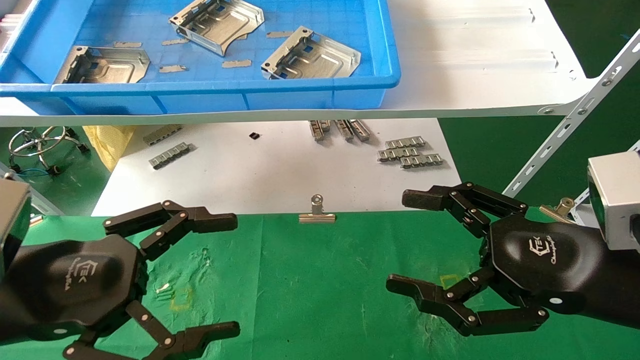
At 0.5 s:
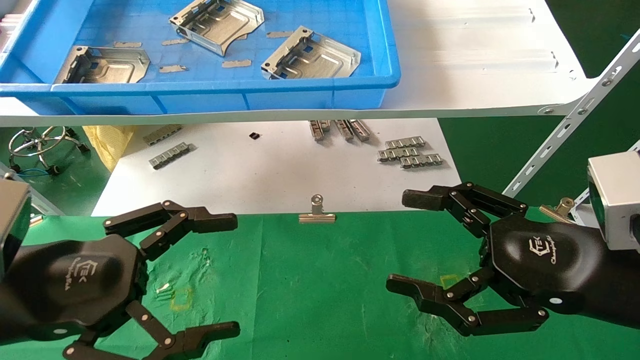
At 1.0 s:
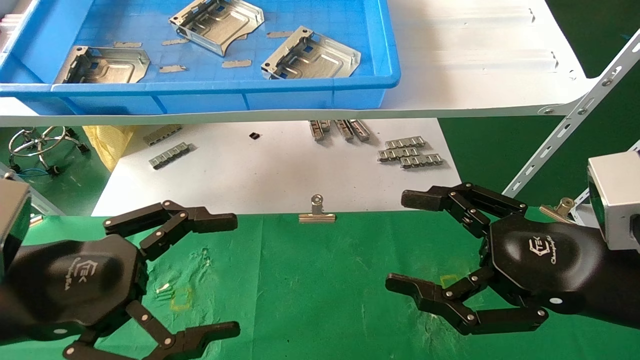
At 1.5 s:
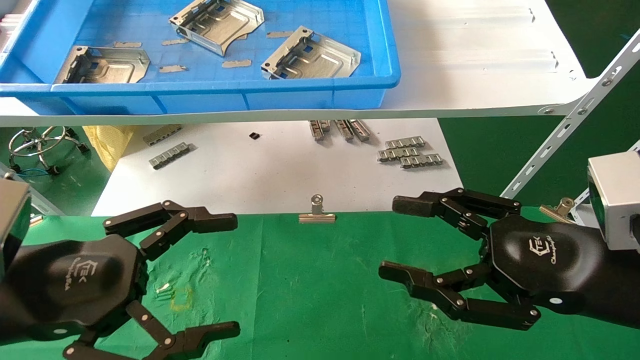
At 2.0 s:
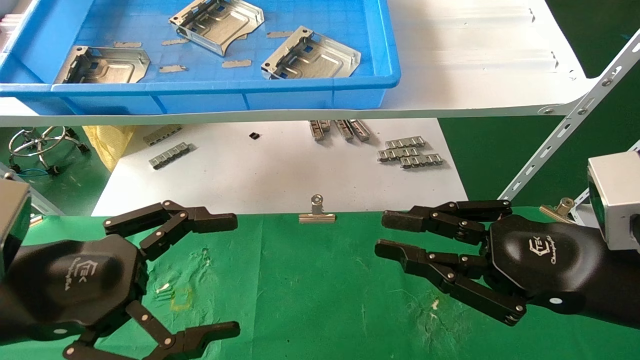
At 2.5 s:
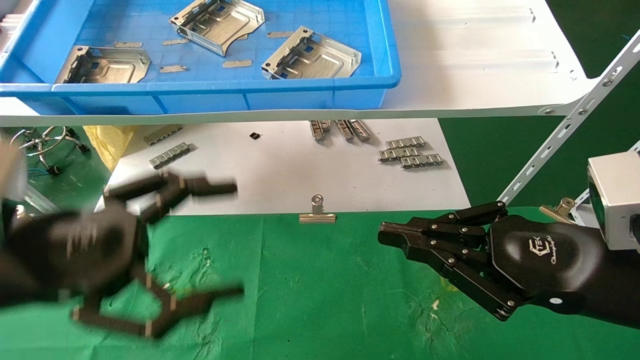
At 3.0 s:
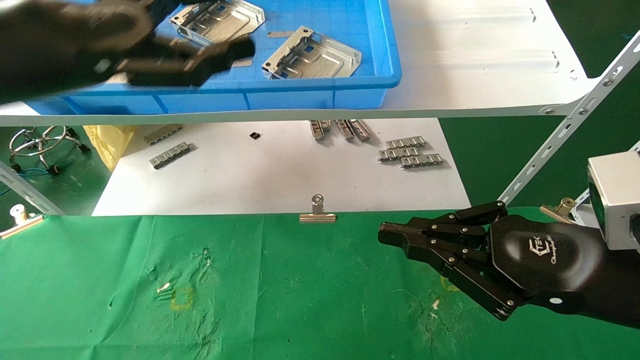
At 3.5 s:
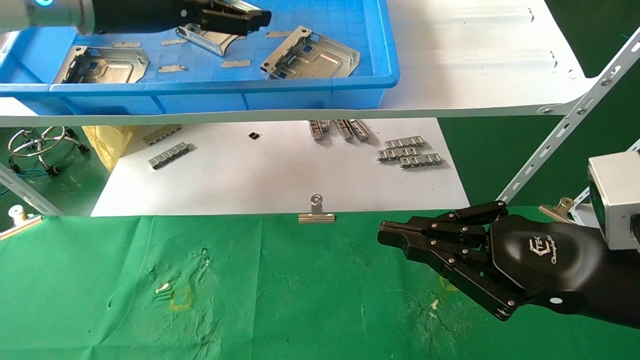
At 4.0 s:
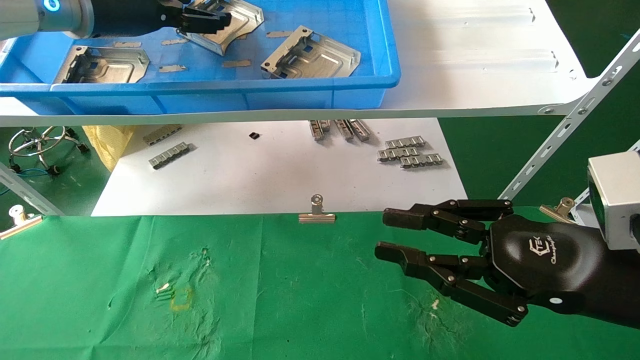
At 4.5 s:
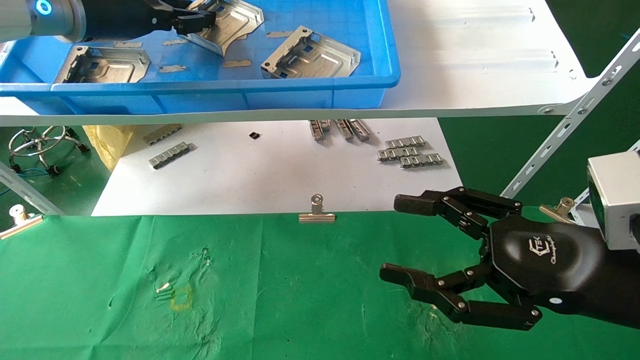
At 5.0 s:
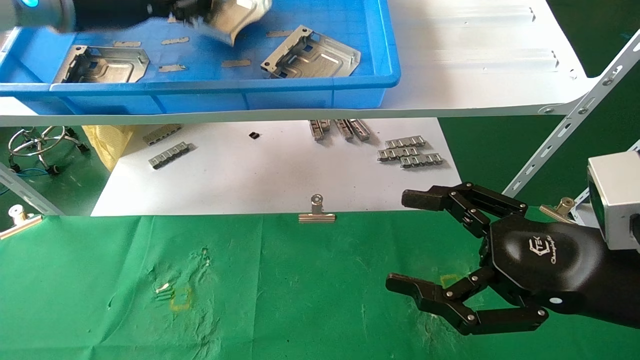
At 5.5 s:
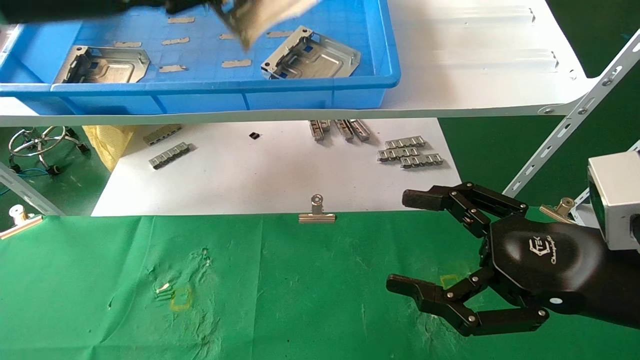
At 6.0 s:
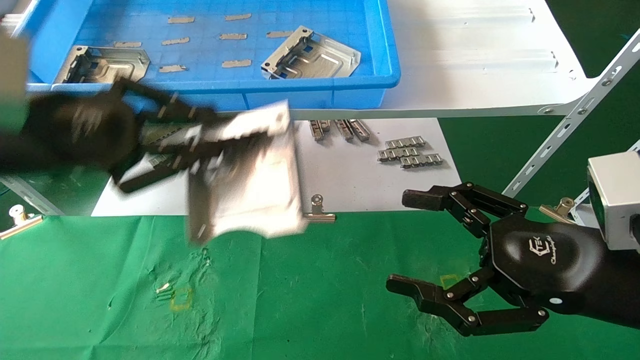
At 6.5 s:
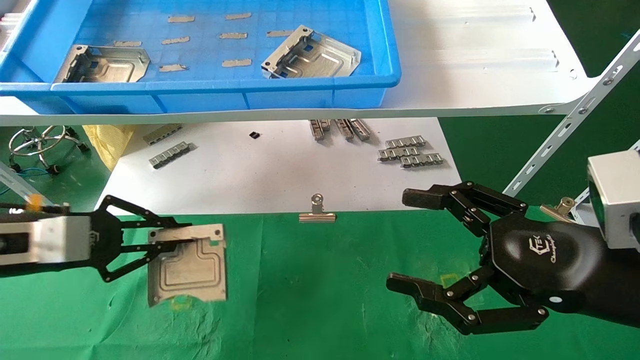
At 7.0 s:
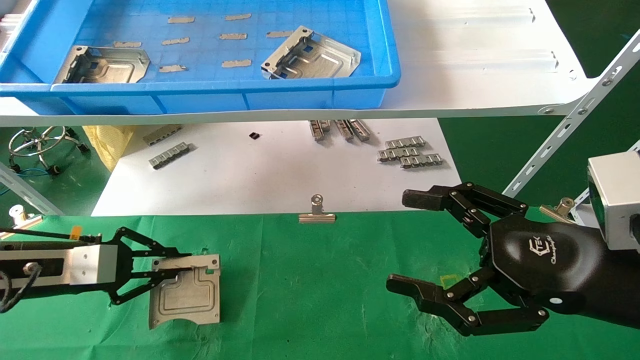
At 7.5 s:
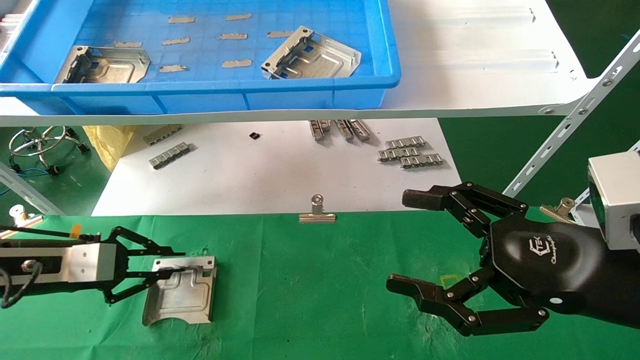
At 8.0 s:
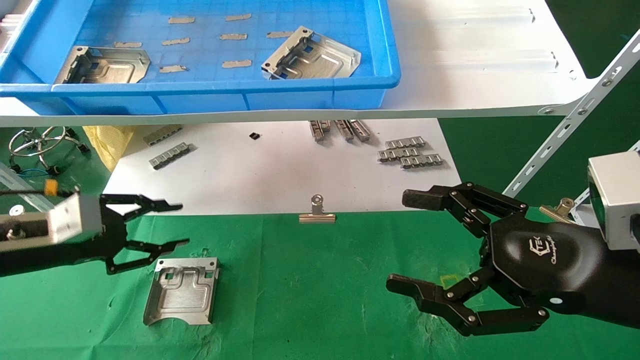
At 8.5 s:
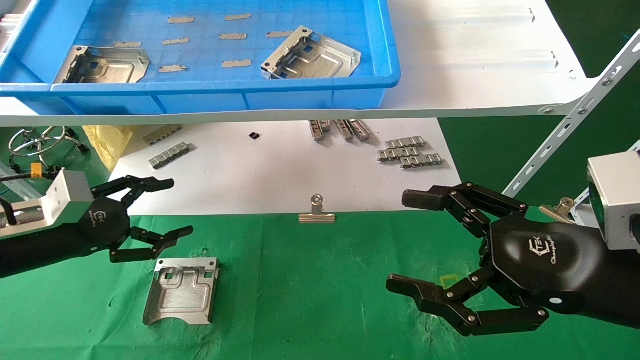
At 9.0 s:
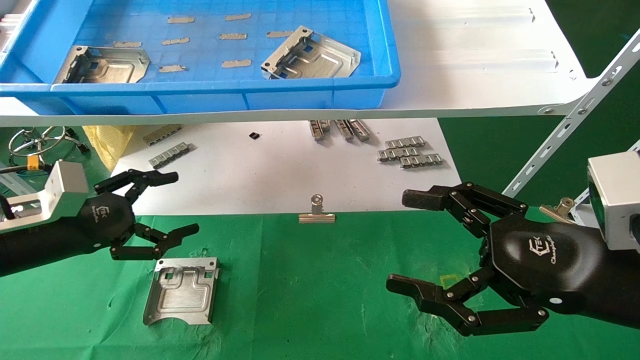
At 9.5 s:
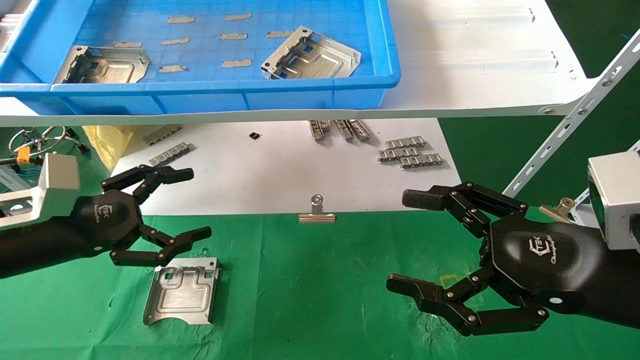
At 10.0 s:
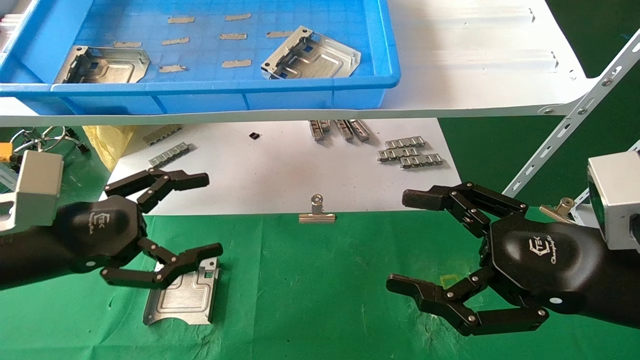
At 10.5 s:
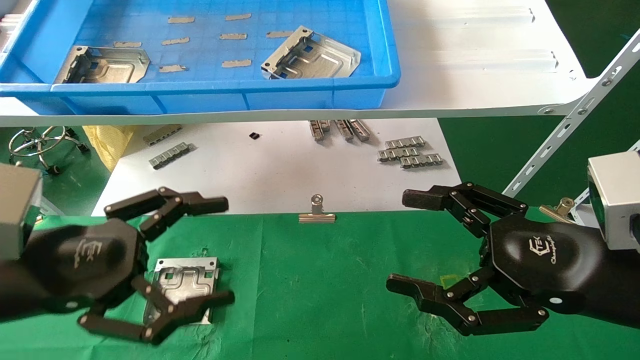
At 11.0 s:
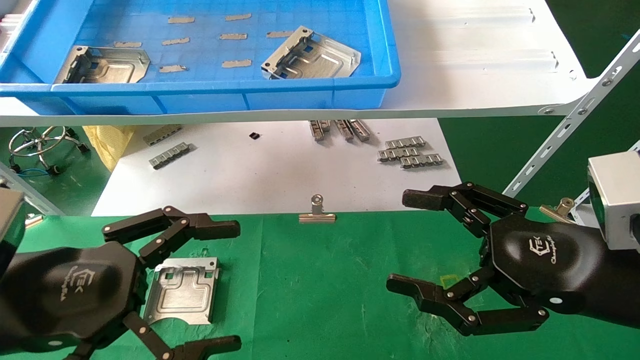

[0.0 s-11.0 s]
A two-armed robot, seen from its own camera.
Task of the whole recording: use the mechanical arm to pick up the parts and place them on the table.
Step, 3.0 to 5.0 s: Pick up the hard drive bracket from the feeding area.
Step, 5.5 to 7.5 s: Place the hard drive bracket into the box.
0.0 to 2.0 s: The right gripper closes its fingers.
2.0 to 3.5 s: The left gripper goes approximately 30 cm upward and forward.
3.5 to 5.5 s: The left gripper moves backward, roughly 5 cm, and closes up. Meanwhile the right gripper opens.
5.5 to 7.5 s: The left gripper travels downward and to the left by approximately 30 cm.
7.5 to 9.0 s: The left gripper opens up.
9.0 to 11.0 s: The left gripper heads backward and to the right, covering roughly 15 cm.

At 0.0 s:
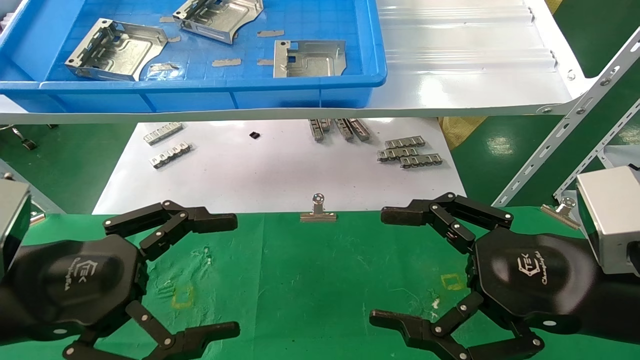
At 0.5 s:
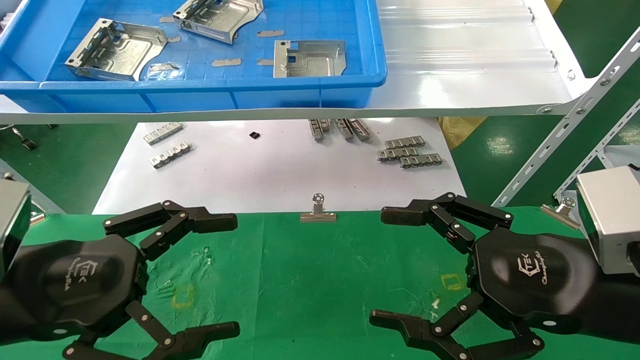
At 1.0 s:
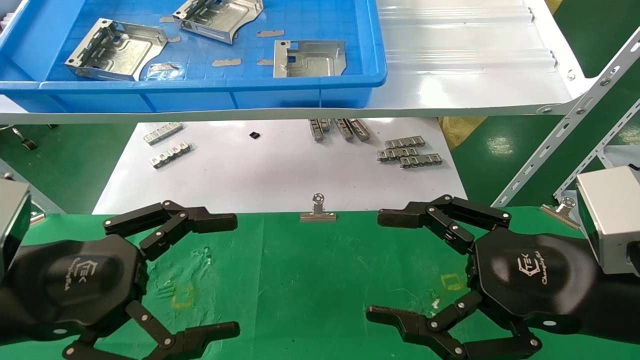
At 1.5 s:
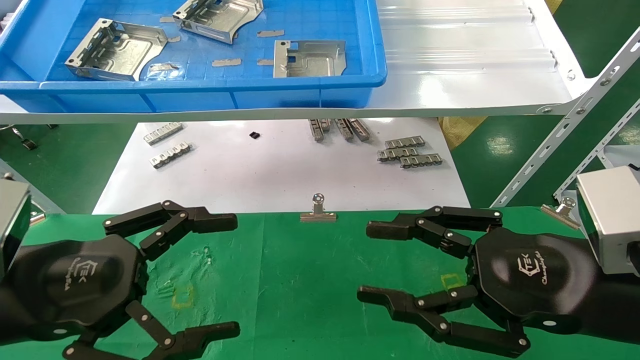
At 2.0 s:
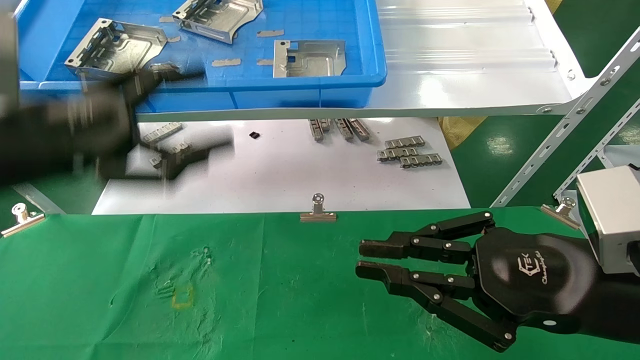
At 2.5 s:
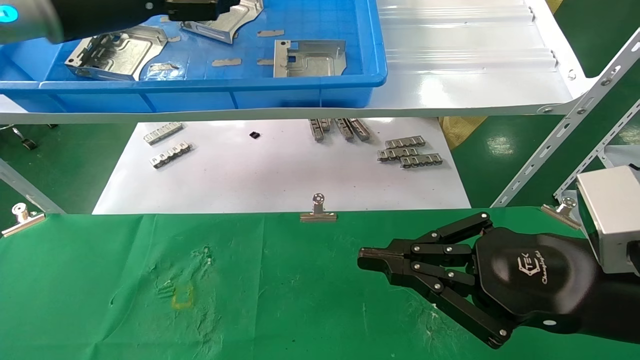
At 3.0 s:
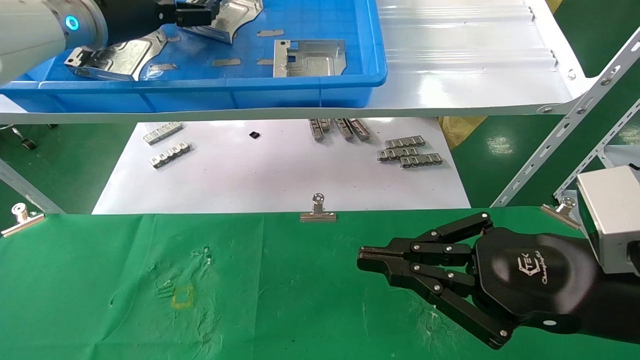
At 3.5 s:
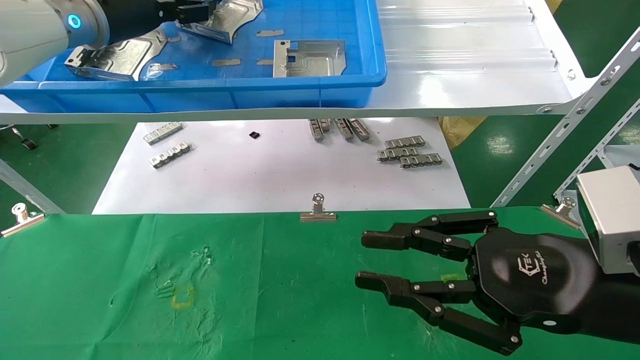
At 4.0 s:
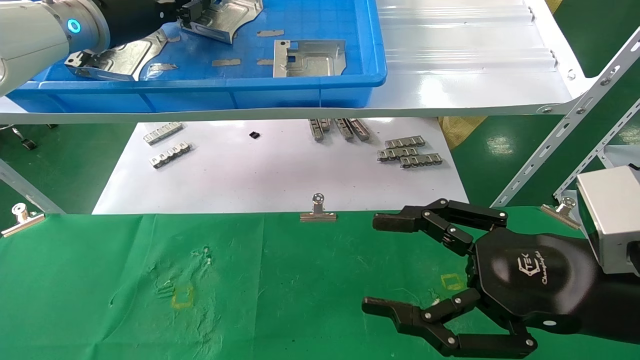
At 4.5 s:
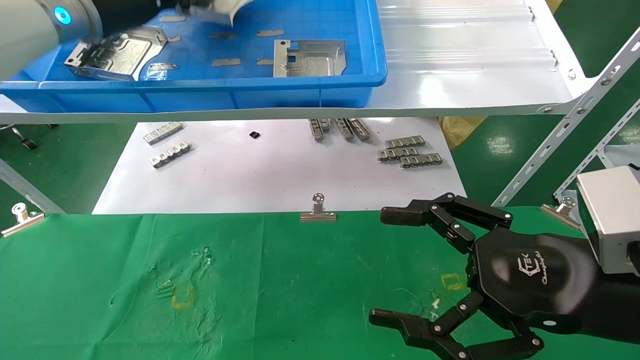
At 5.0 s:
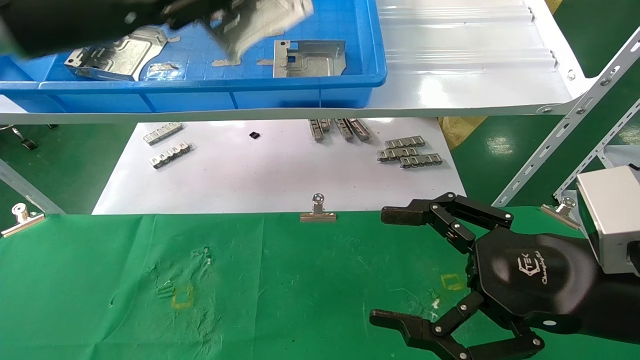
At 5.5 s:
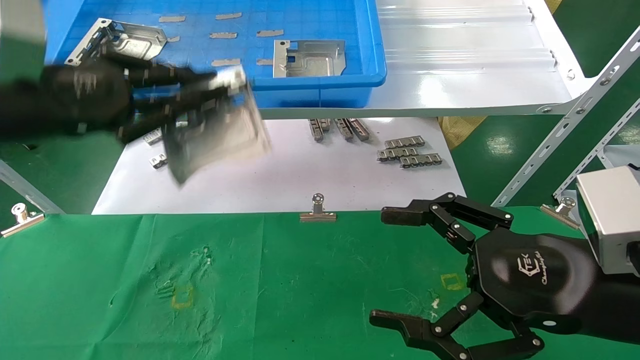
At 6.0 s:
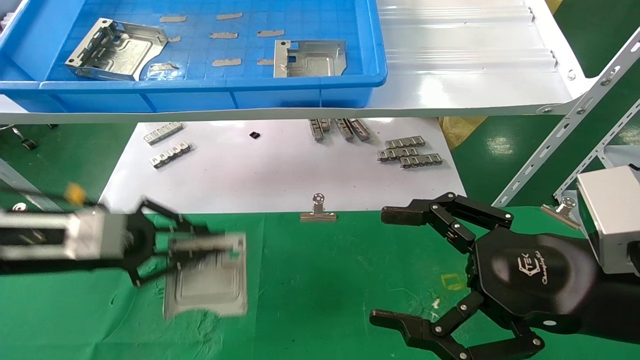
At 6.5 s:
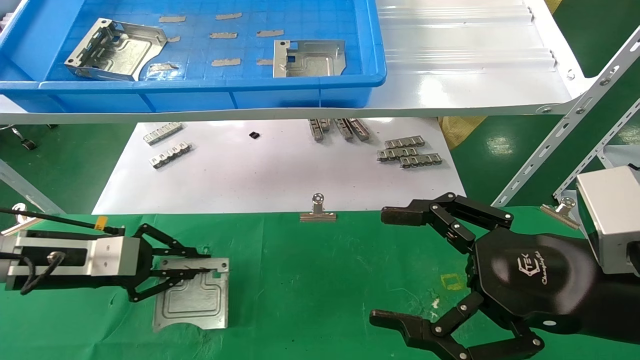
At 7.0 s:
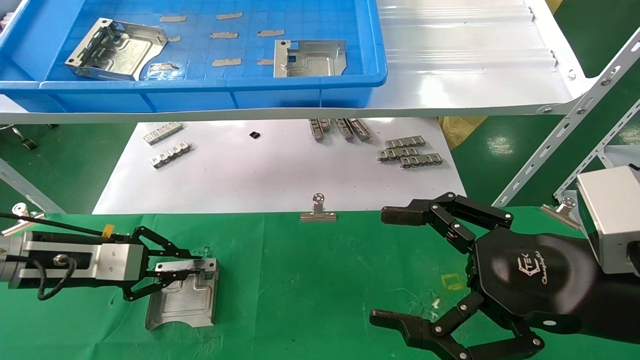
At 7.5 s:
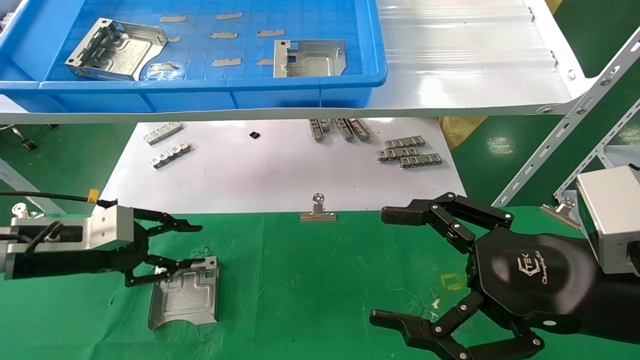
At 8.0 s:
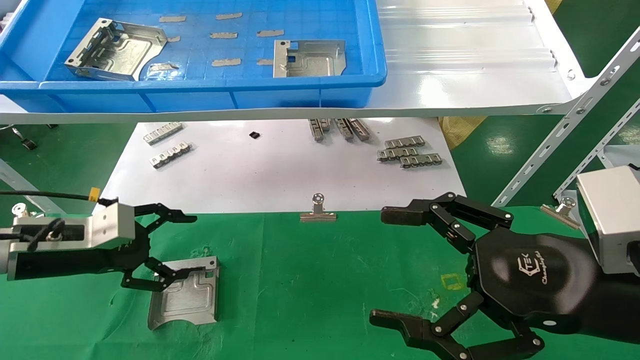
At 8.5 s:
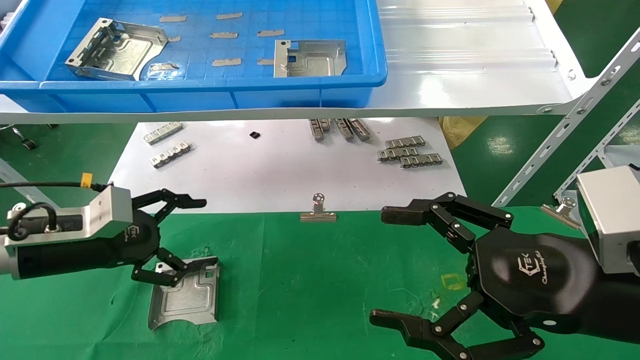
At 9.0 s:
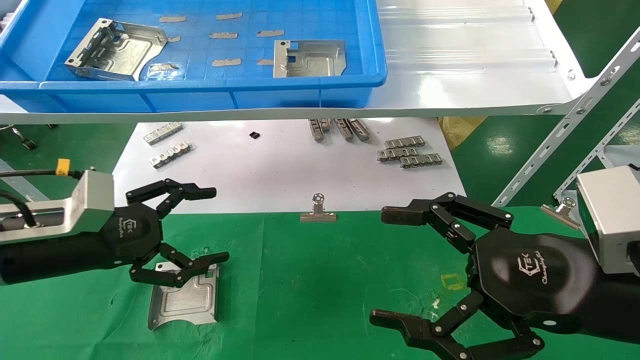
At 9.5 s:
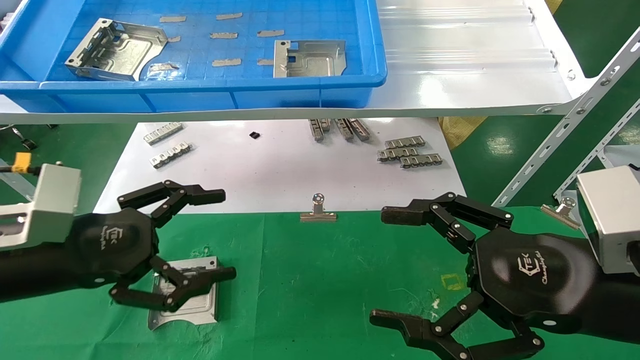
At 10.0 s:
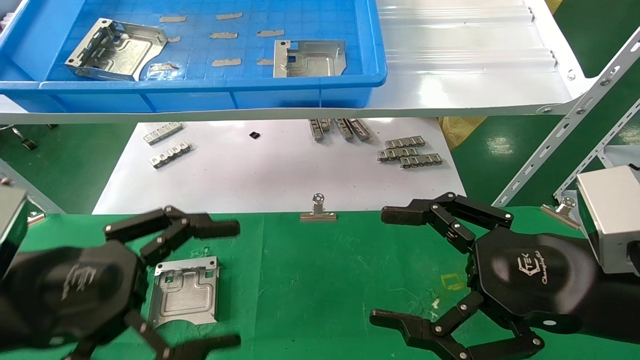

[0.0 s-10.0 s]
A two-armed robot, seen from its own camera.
Task of the whole recording: use the mechanical arm to pick up the parts and place them on the table.
Step, 2.0 to 4.0 s: Pick up the hard drive bracket from the feeding area.
Step, 4.5 to 7.0 s: Place the hard drive bracket into the box.
0.0 to 2.0 s: The right gripper closes its fingers. The left gripper heads upward and forward, covering some 10 cm.
2.0 to 4.0 s: The left gripper goes about 20 cm forward and upward, and closes. Meanwhile the right gripper opens up.
4.0 to 6.0 s: The left gripper is displaced downward and backward by about 25 cm, and closes; the right gripper opens up.
6.0 to 8.0 s: The left gripper shifts by roughly 5 cm, and opens its fingers.
8.0 to 10.0 s: The left gripper shifts some 20 cm backward and to the right.
